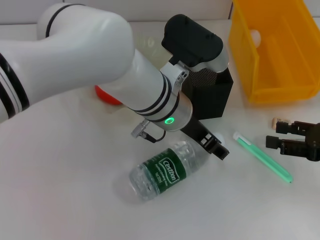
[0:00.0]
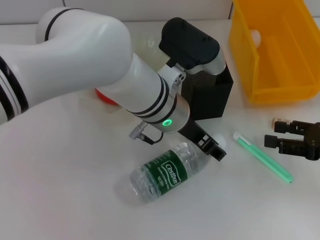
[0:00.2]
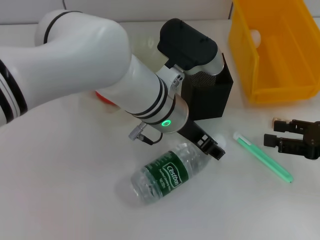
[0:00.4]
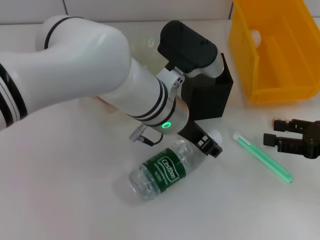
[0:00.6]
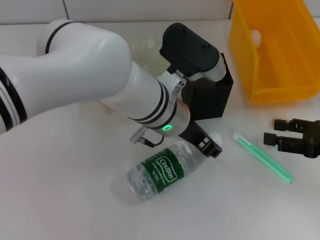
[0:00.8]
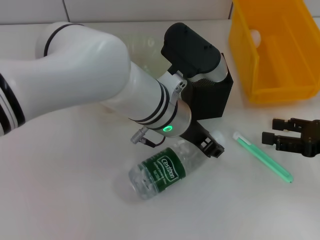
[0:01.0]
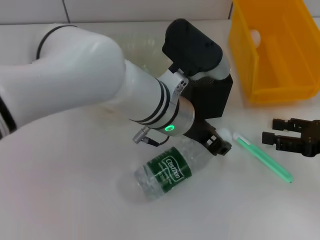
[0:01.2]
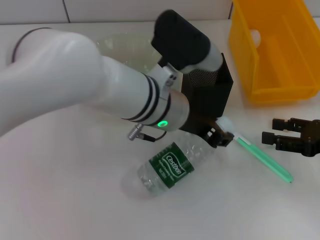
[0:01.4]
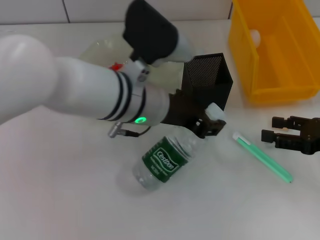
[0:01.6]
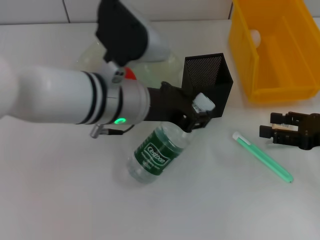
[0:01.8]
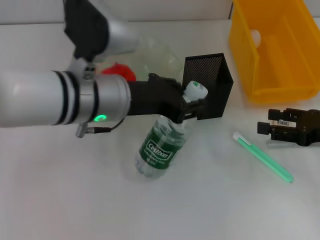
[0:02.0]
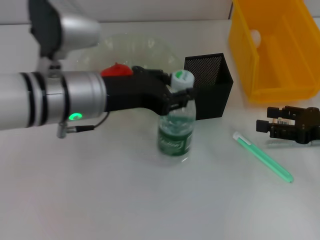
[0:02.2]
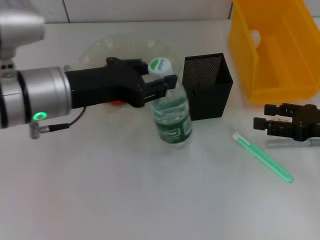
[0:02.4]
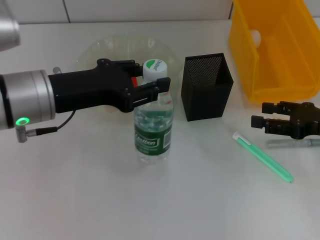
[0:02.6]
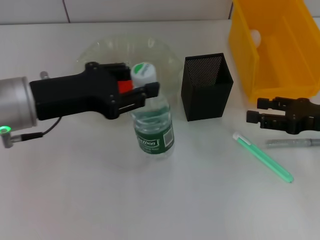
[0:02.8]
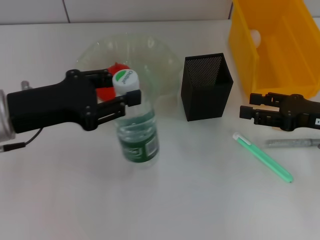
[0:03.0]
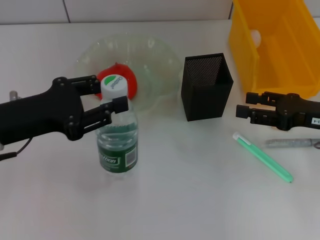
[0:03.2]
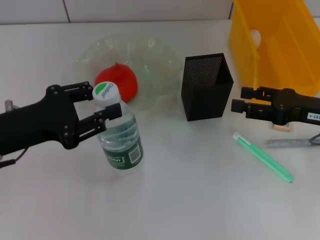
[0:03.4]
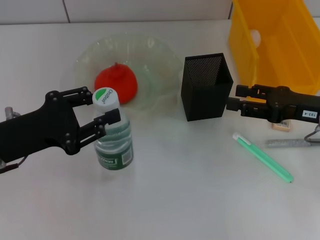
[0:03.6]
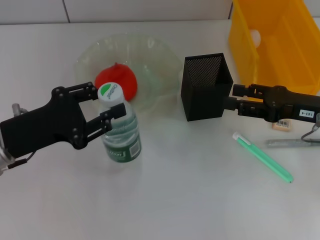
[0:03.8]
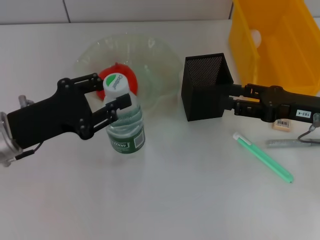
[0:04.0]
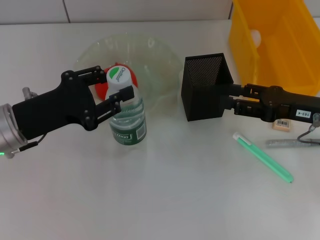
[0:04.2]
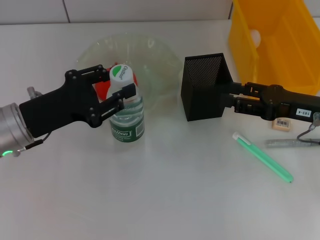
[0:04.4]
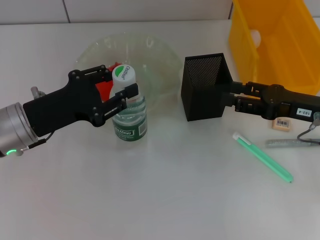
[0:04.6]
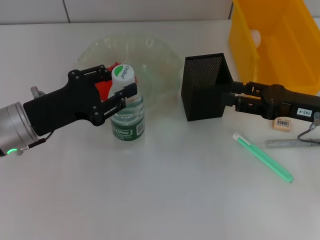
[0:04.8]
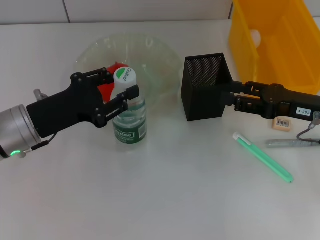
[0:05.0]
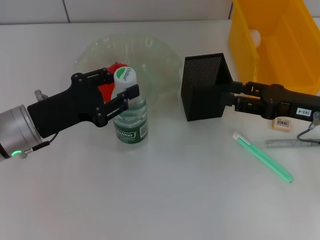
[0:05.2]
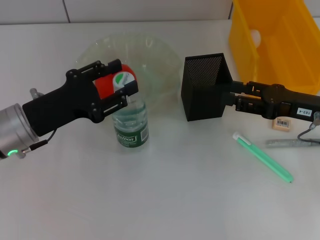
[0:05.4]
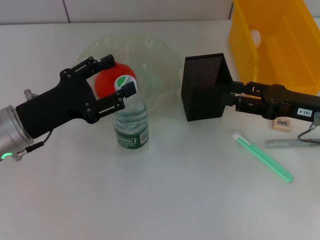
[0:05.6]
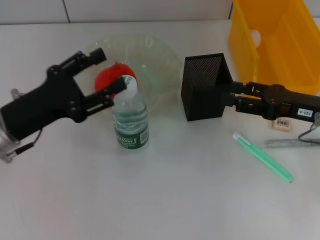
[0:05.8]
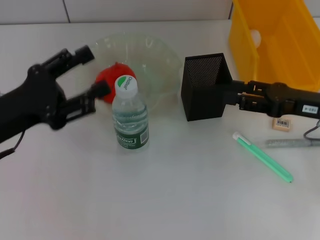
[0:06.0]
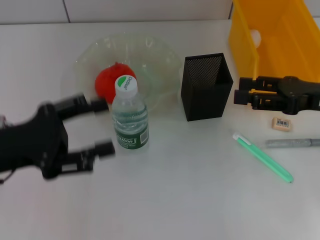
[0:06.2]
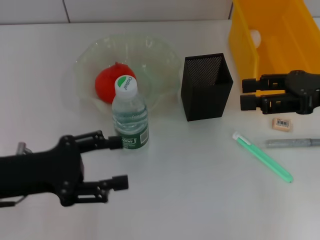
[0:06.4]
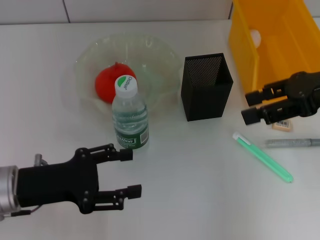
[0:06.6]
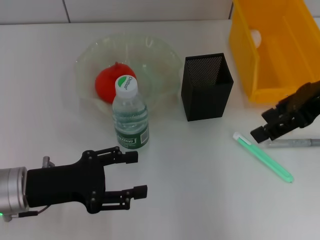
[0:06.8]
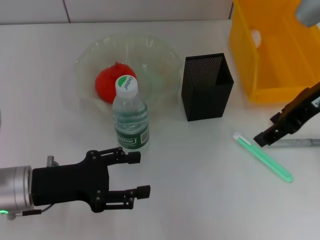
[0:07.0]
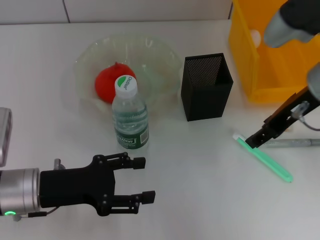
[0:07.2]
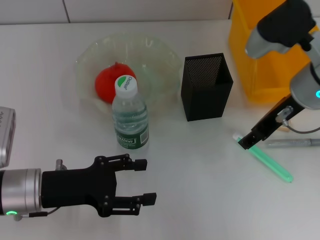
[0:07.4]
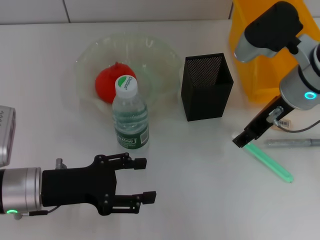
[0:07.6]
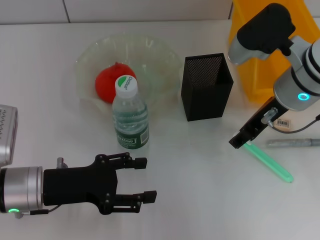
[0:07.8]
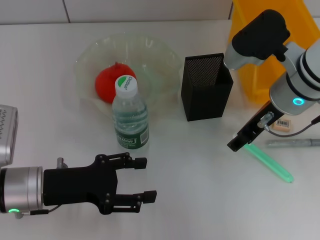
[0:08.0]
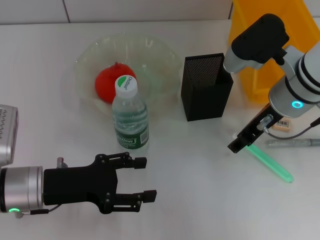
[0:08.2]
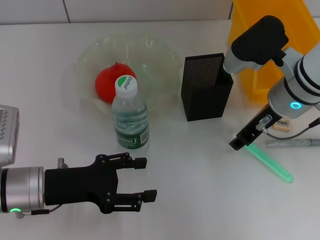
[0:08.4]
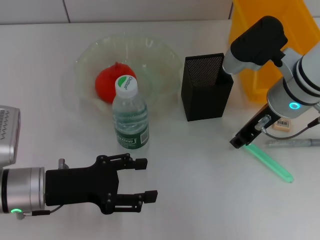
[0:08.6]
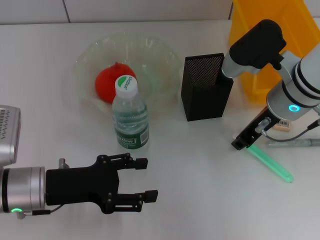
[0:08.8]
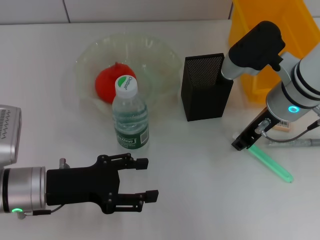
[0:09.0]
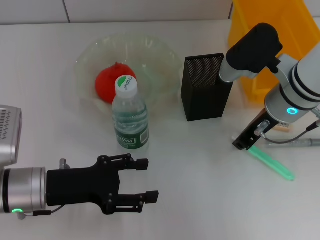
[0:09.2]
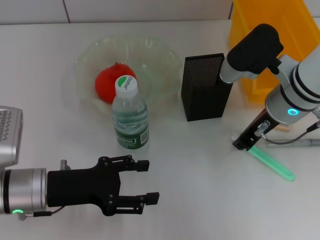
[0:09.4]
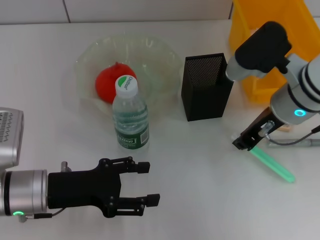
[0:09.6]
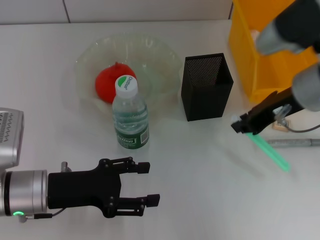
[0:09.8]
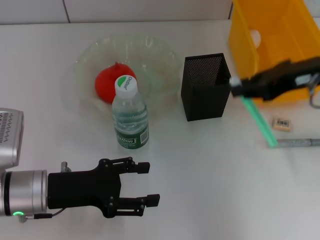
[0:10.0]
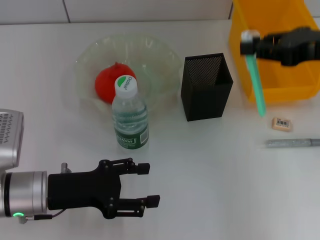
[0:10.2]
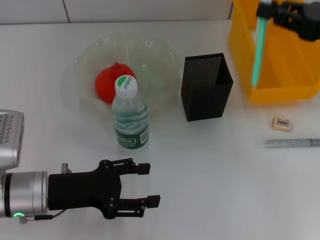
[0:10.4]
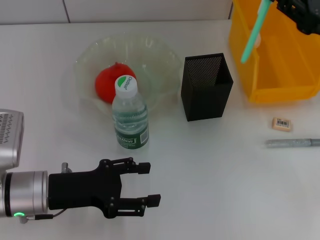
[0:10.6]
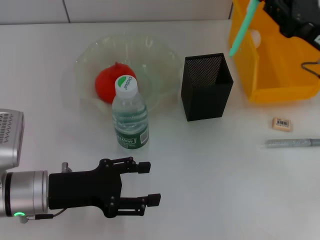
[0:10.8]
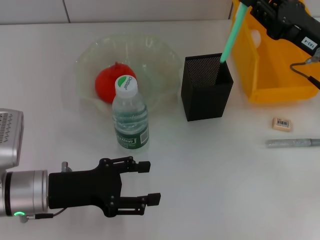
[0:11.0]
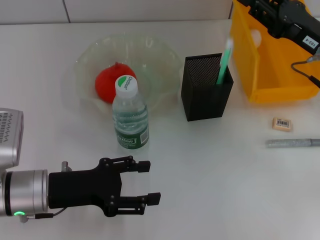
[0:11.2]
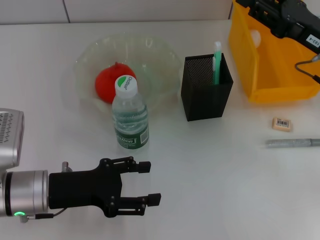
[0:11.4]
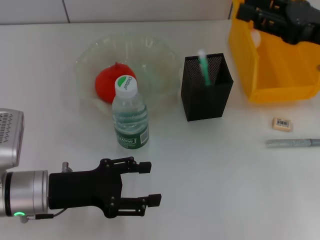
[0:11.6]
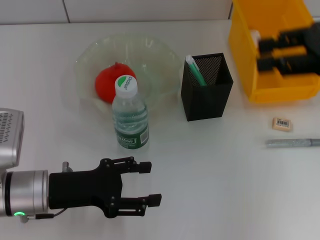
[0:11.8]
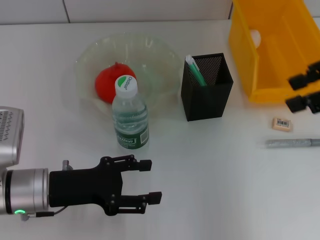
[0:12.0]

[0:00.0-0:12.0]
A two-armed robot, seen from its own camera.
Step, 0:00.8 to 0:05.4: Place the water bottle on the table with the left hand.
Step, 0:05.6 to 0:09.2: Grab the blue utility knife with the right hand.
Step, 0:09.4 to 0:11.6: Place the blue utility knife into the pen holder with the right hand.
0:00.0 to 0:01.6: The left gripper closes up.
0:01.6 to 0:03.0: The left gripper moves to the left, about 20 cm.
0:03.0 to 0:04.4: The left gripper travels downward by roughly 5 cm.
0:04.4 to 0:06.0: The left gripper opens up.
0:06.0 to 0:07.6: The left gripper travels downward by about 5 cm. Meanwhile the right gripper moves to the left and upward, roughly 10 cm.
0:07.6 to 0:09.0: The right gripper closes up.
0:09.0 to 0:10.4: The right gripper heads to the right and upward, covering approximately 15 cm.
0:10.4 to 0:12.0: The right gripper shifts about 10 cm upward, and opens up.

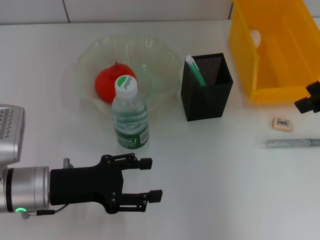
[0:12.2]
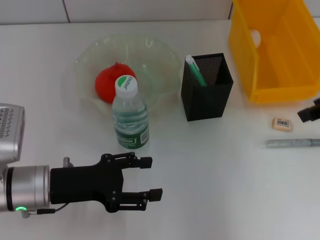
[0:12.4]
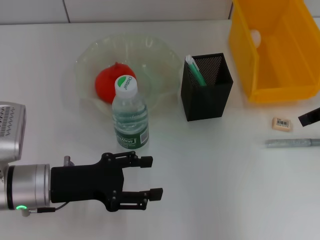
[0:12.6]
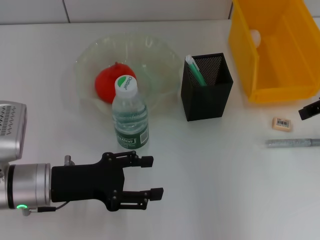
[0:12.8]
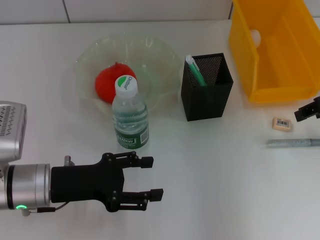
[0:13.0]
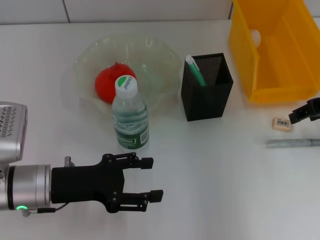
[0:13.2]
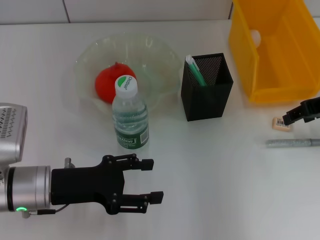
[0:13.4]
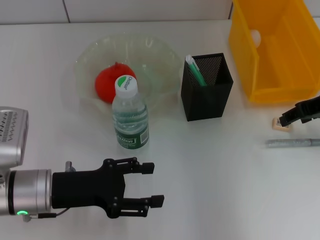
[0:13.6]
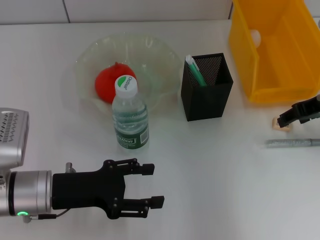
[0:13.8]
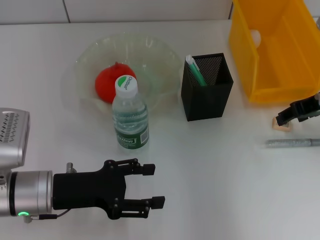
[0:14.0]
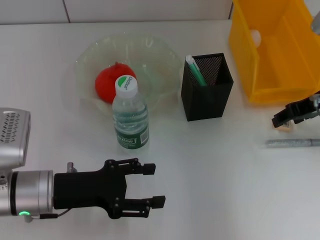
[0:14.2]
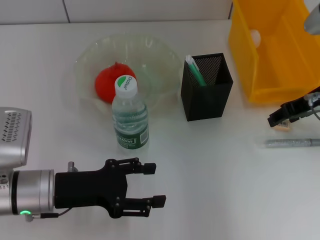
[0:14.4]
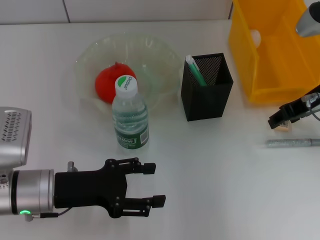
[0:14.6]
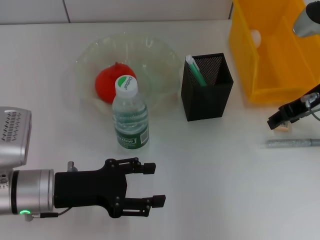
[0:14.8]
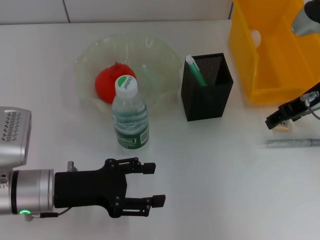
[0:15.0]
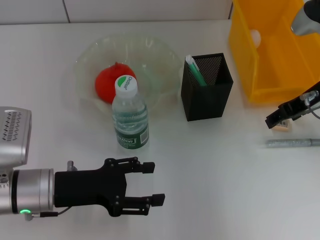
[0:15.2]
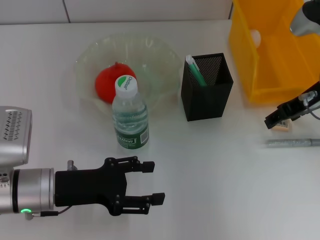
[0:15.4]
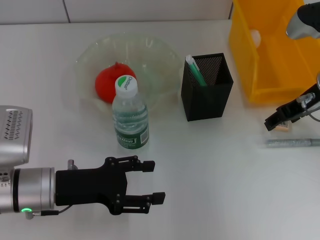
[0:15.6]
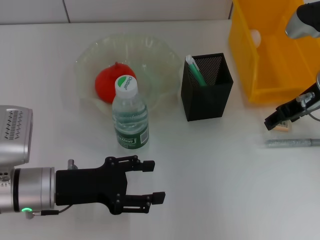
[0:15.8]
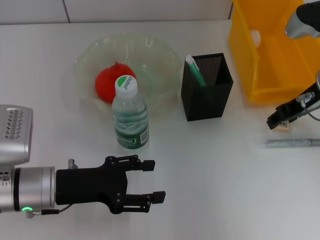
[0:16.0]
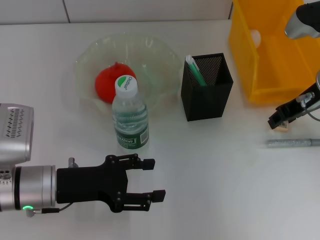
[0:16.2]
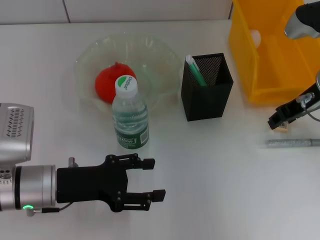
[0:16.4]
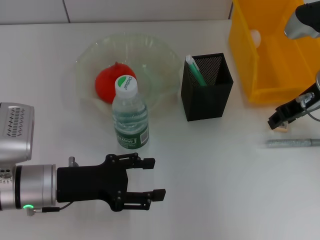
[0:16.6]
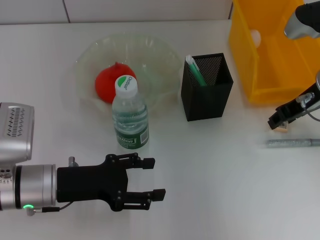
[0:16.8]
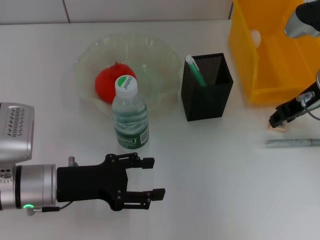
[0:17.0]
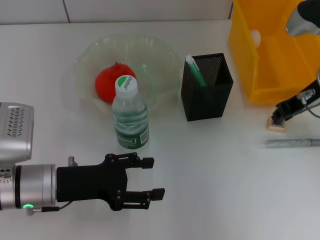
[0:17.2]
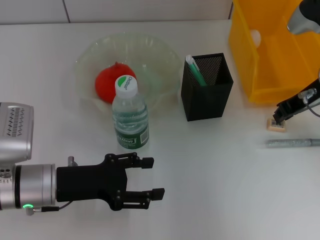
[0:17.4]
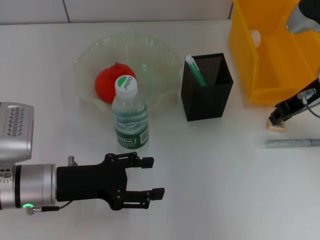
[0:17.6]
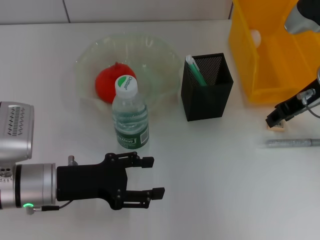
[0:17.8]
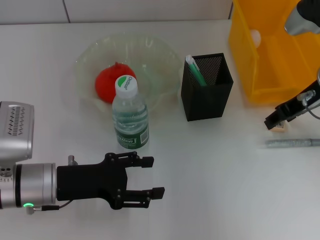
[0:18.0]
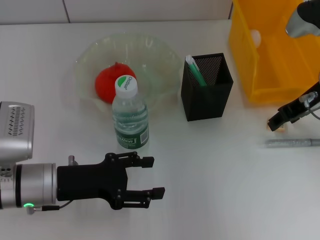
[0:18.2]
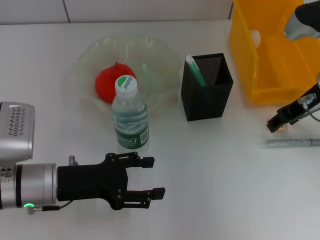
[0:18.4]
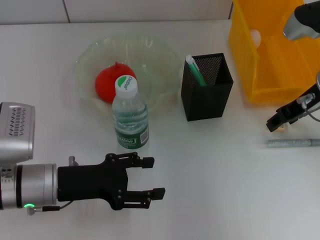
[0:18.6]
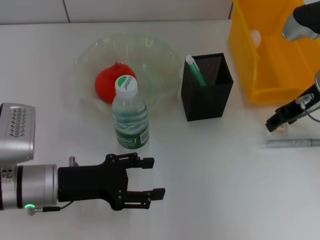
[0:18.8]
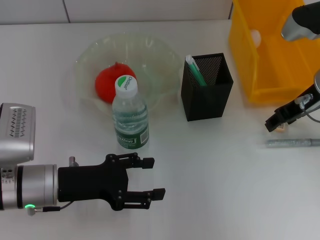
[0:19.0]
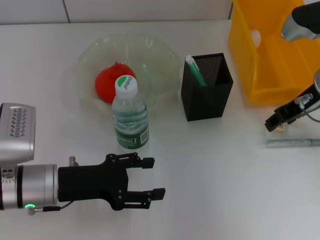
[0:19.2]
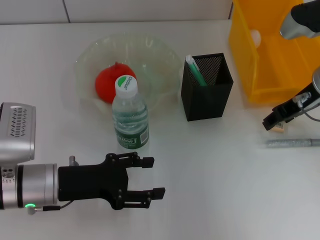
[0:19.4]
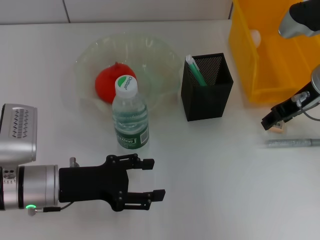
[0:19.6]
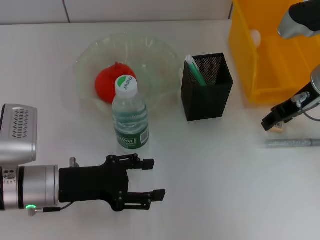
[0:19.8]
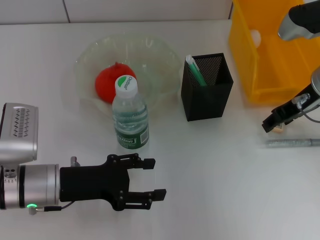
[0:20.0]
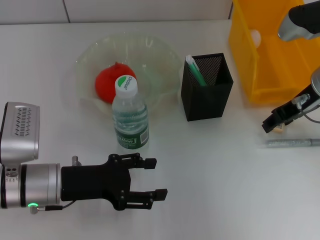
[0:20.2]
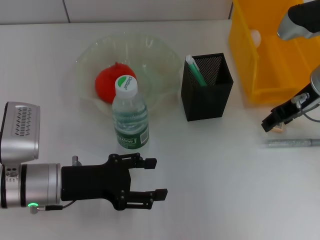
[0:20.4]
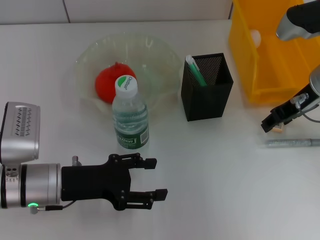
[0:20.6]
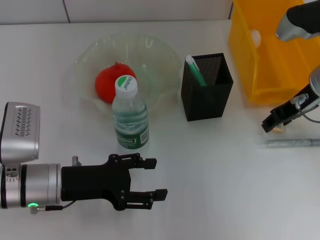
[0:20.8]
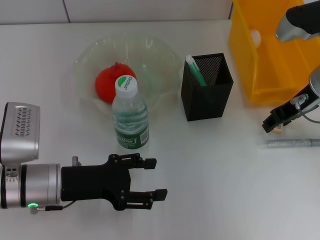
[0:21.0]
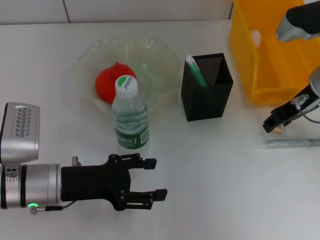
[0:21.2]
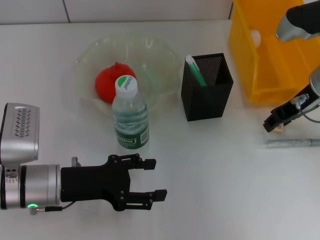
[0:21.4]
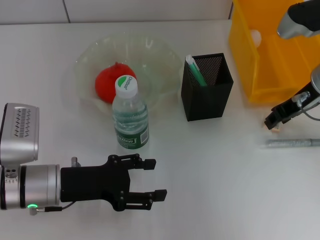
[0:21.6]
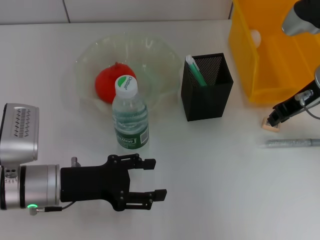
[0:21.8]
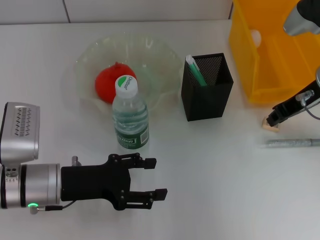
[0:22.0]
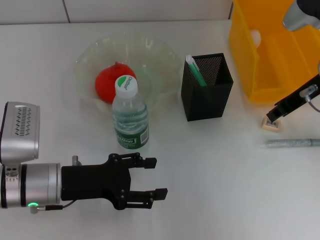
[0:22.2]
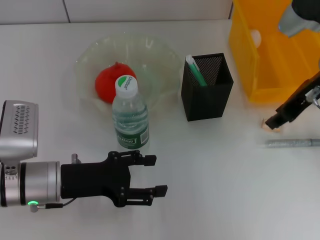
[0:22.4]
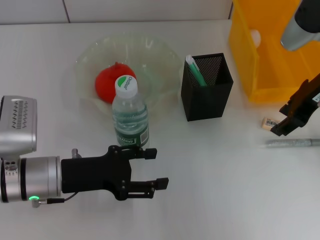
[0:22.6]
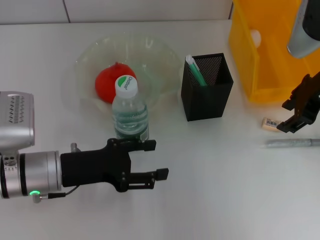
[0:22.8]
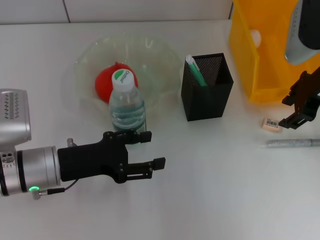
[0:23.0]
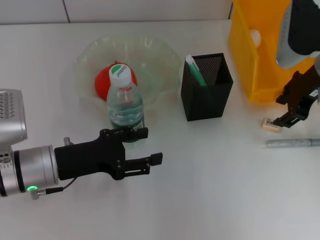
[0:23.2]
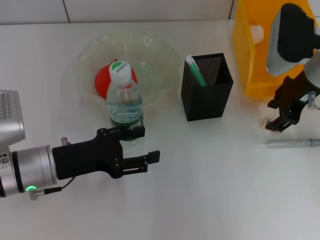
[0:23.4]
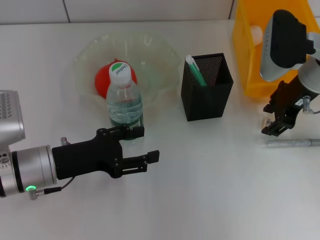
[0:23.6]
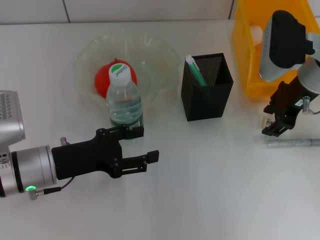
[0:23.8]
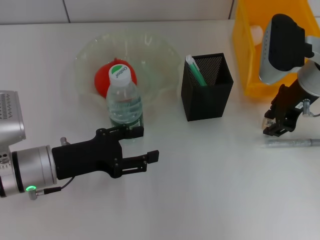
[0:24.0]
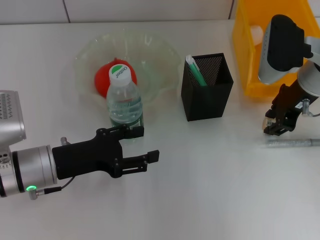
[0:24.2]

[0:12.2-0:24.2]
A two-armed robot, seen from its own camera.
0:12.2 to 0:13.8: The right gripper goes about 10 cm downward.
0:13.8 to 0:15.2: The grippers make only small movements.
0:15.2 to 0:16.6: The right gripper closes up.
0:16.6 to 0:18.2: The right gripper closes, then reopens.
0:18.2 to 0:21.2: Neither gripper changes place.
0:21.2 to 0:22.6: The right gripper closes, then opens again.
0:22.6 to 0:24.2: The right gripper shifts by some 5 cm.
